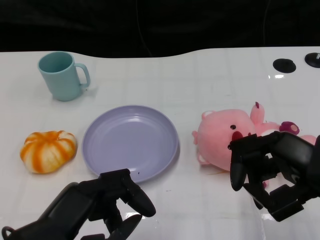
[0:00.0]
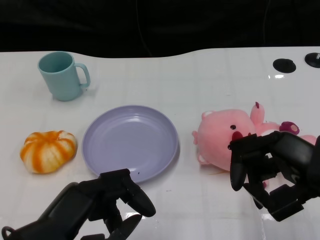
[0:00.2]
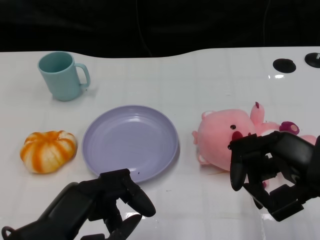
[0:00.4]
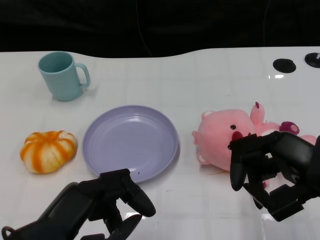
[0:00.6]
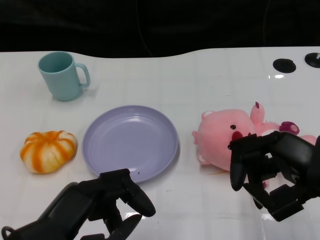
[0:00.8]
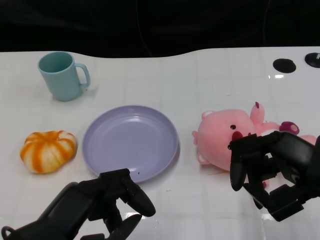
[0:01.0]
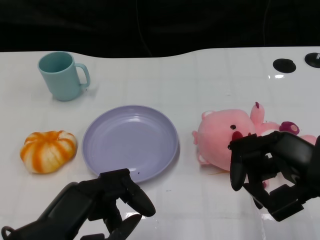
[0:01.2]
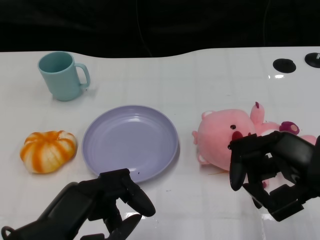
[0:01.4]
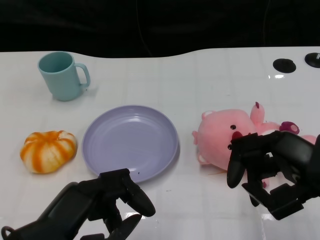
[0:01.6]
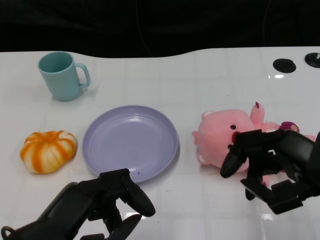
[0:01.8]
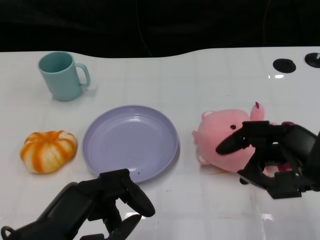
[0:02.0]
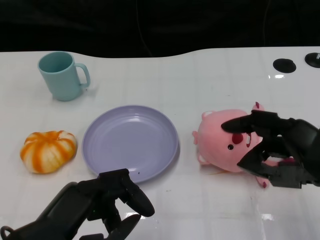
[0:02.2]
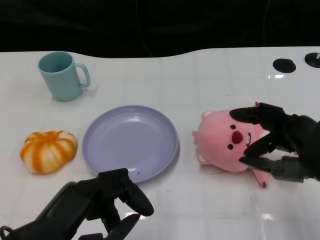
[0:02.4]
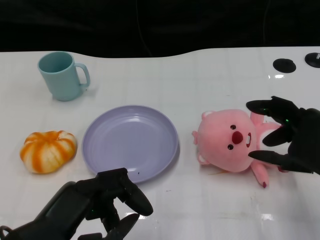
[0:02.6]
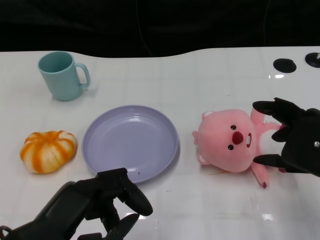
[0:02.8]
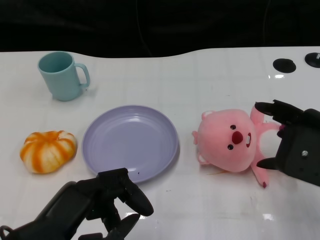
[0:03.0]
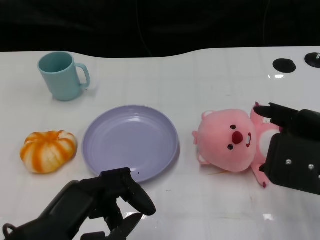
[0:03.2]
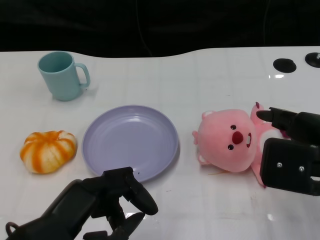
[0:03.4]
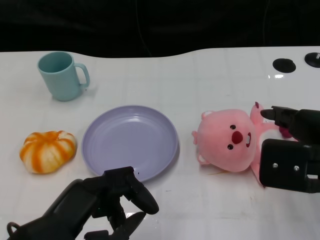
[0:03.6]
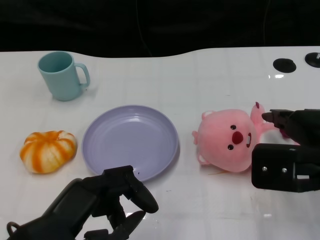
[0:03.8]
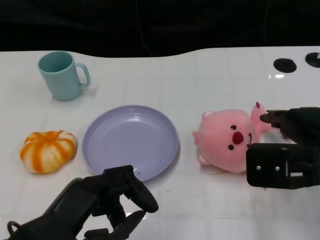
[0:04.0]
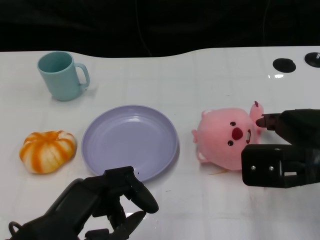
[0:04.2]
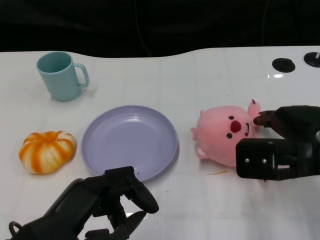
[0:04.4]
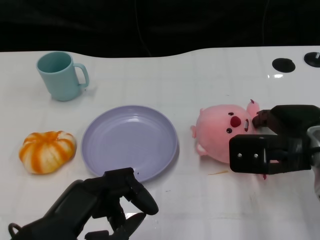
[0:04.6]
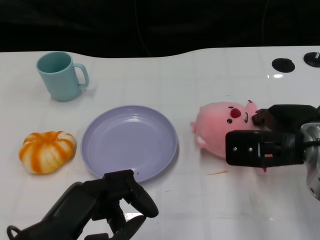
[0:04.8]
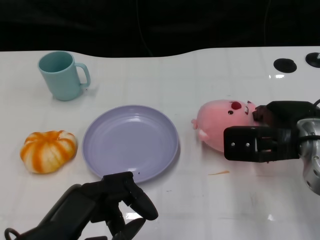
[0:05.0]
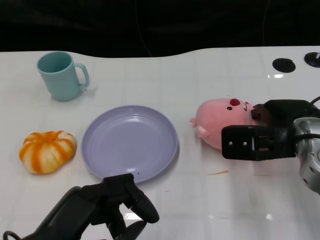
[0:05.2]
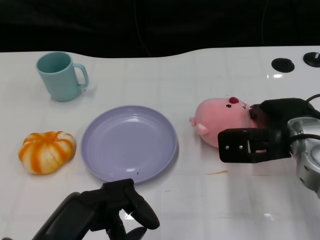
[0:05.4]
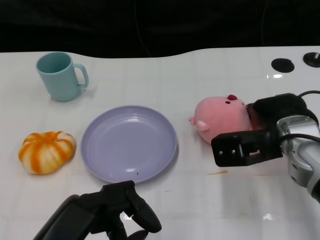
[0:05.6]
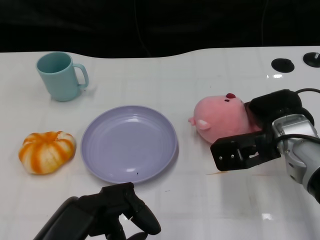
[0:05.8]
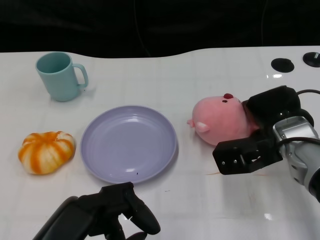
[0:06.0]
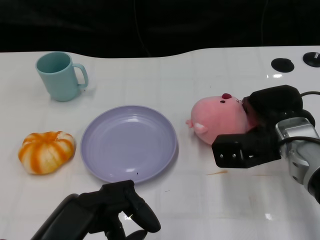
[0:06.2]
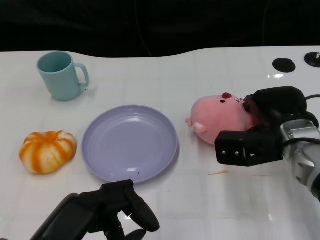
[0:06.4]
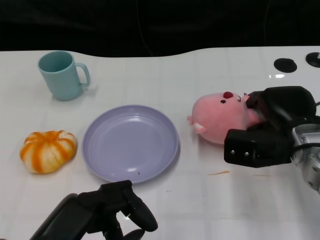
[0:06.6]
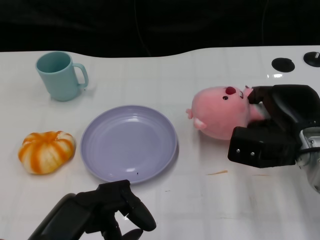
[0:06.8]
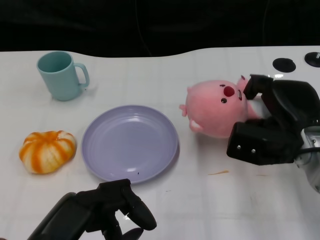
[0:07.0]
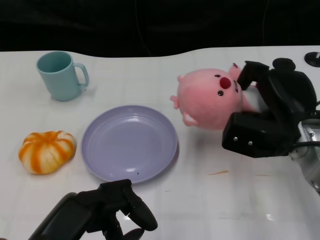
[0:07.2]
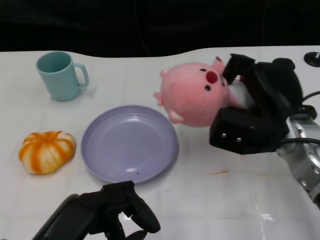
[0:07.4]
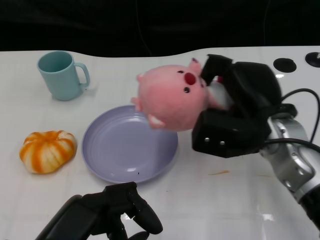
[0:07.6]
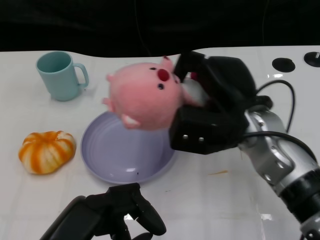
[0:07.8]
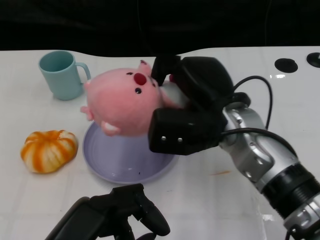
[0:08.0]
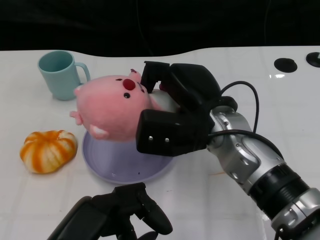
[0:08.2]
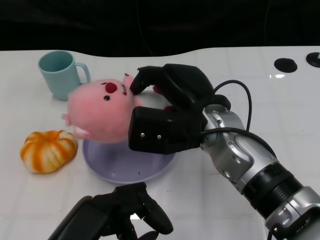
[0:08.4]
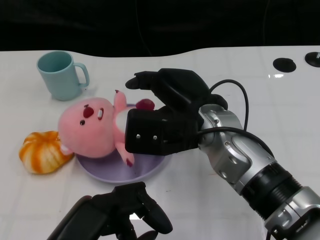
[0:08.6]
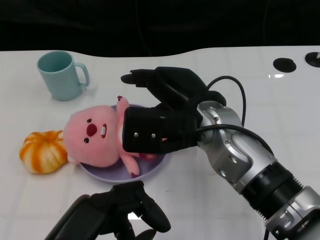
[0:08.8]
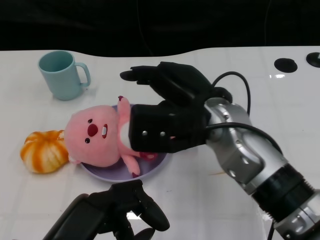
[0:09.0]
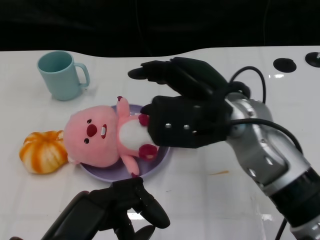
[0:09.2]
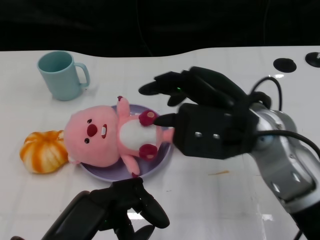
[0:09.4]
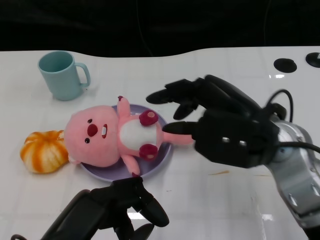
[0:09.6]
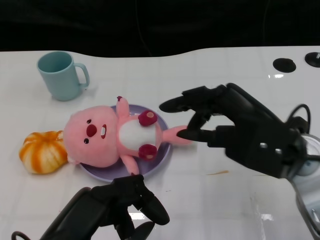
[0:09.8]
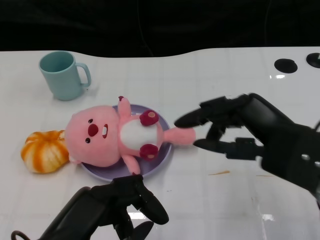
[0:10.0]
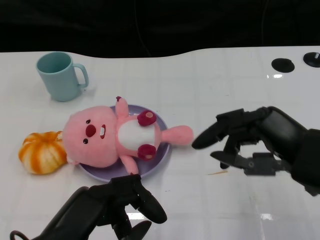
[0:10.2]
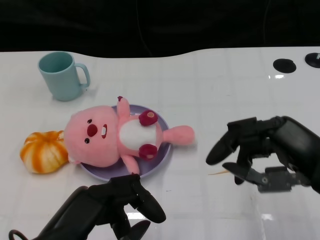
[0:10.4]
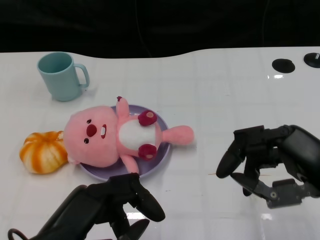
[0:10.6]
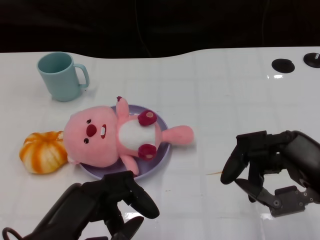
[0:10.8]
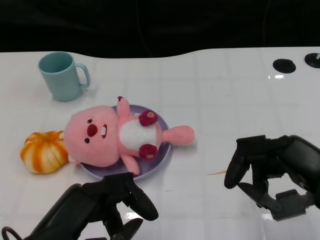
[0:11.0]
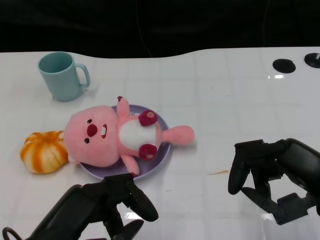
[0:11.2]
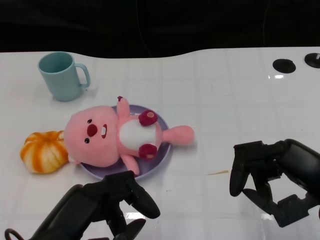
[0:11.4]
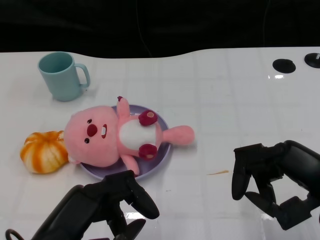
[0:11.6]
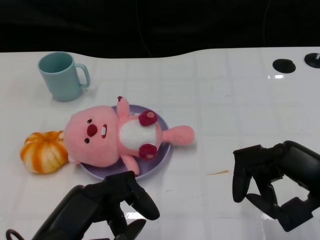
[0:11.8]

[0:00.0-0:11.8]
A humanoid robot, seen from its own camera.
Task of the whole recording: Pick up the doll on the other side of the plate and place it into the plate.
Step, 0:01.2 to 0:07.2: Grasp the pink doll with the right gripper.
Step, 0:07.4 to 0:09.6: Place the pink doll into the plate with the right gripper.
0:03.0 to 0:04.4: The right hand shifts roughly 5 cm forward.
0:04.4 to 0:06.0: The right hand goes roughly 10 cm forward and downward.
0:07.4 to 0:08.8: The right hand is displaced to the left by roughly 10 cm.
0:08.8 to 0:10.4: The right hand goes roughly 20 cm to the right and backward.
0:10.4 to 0:11.8: There are only small adjustments of the hands.

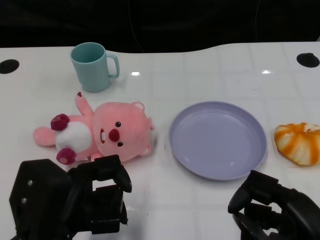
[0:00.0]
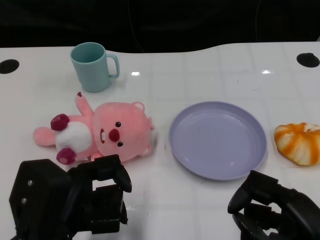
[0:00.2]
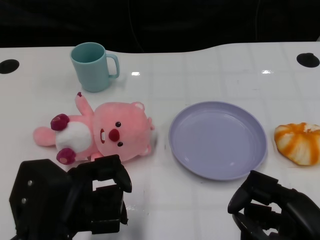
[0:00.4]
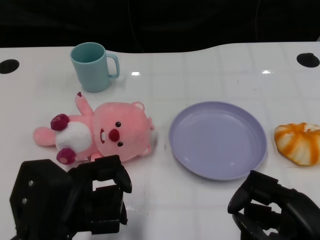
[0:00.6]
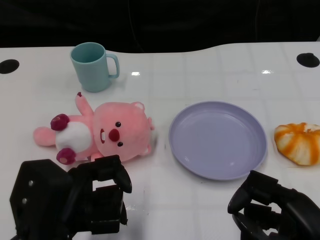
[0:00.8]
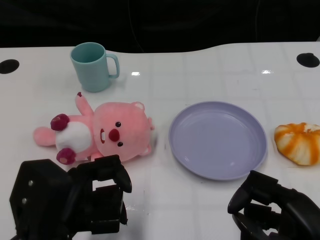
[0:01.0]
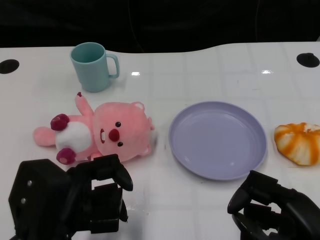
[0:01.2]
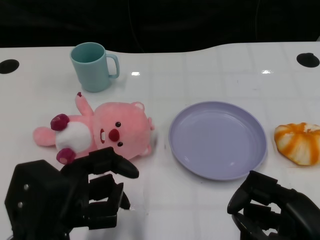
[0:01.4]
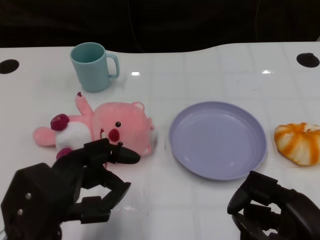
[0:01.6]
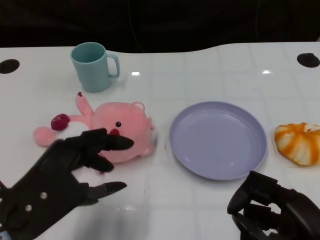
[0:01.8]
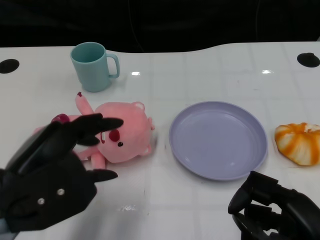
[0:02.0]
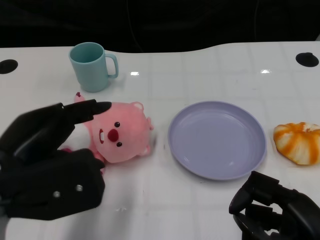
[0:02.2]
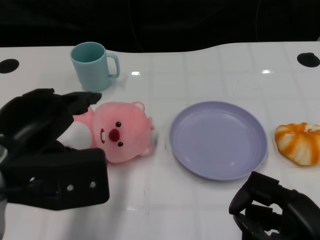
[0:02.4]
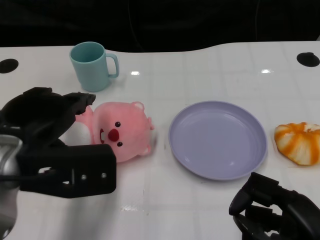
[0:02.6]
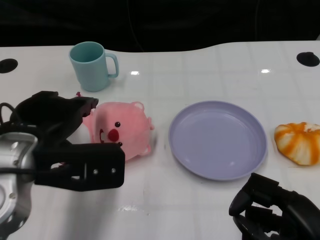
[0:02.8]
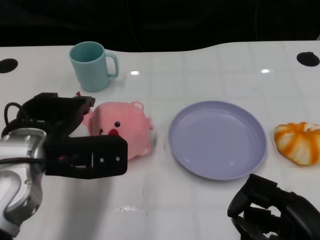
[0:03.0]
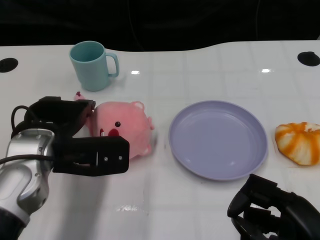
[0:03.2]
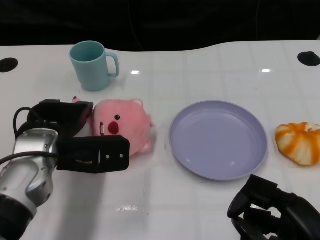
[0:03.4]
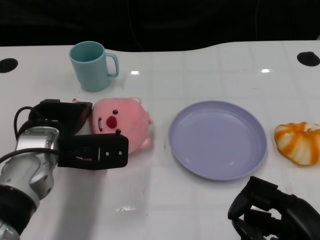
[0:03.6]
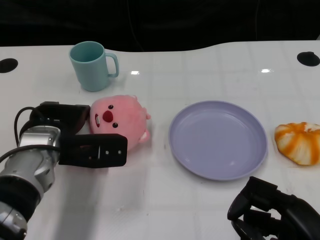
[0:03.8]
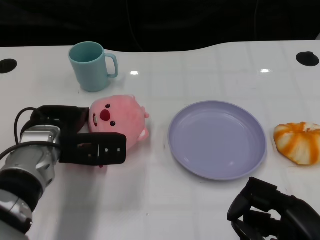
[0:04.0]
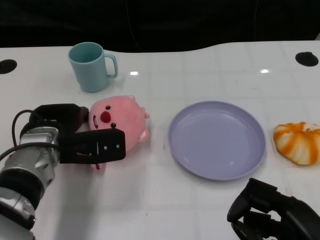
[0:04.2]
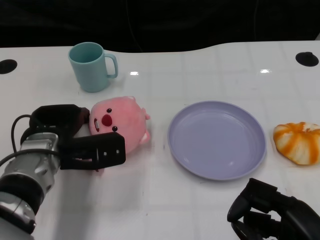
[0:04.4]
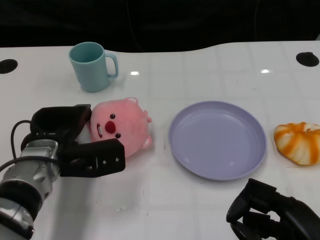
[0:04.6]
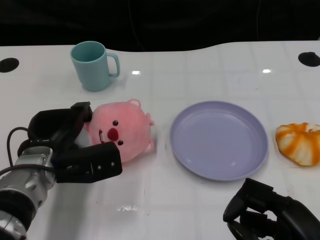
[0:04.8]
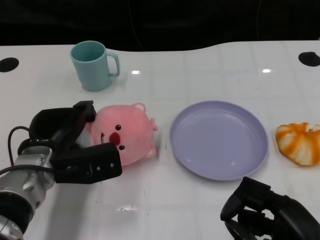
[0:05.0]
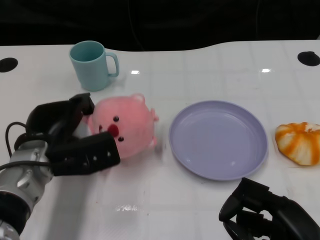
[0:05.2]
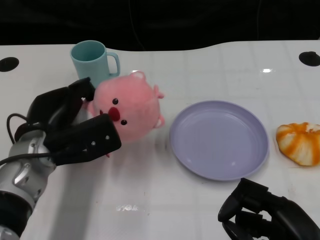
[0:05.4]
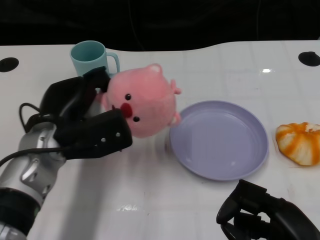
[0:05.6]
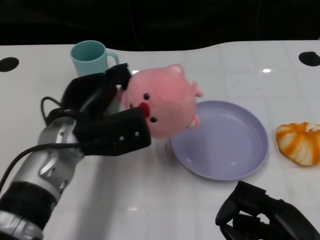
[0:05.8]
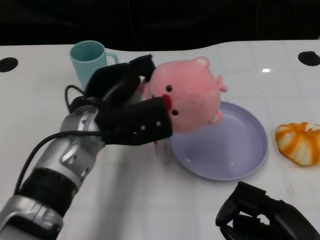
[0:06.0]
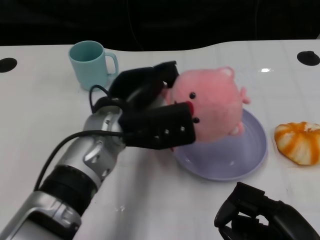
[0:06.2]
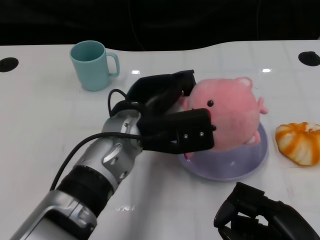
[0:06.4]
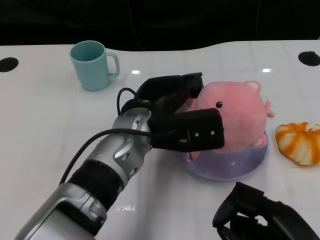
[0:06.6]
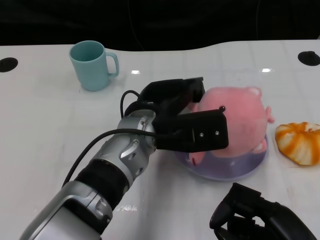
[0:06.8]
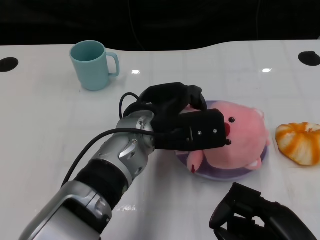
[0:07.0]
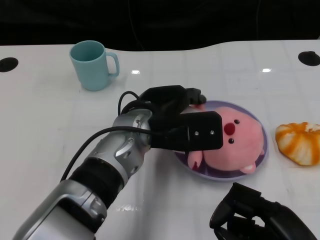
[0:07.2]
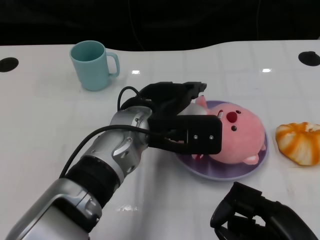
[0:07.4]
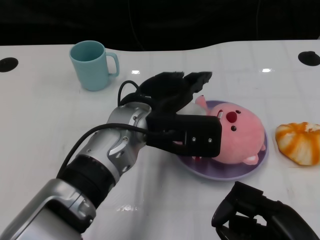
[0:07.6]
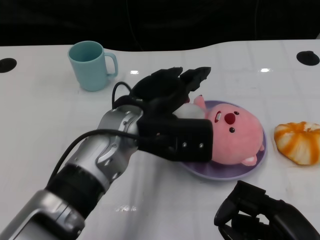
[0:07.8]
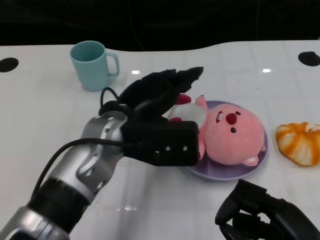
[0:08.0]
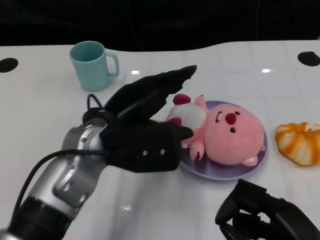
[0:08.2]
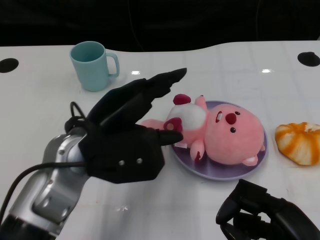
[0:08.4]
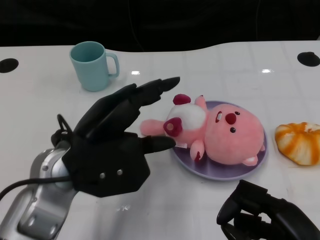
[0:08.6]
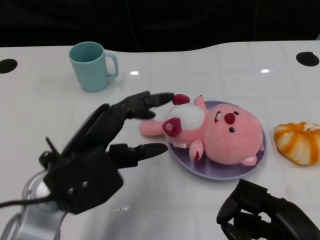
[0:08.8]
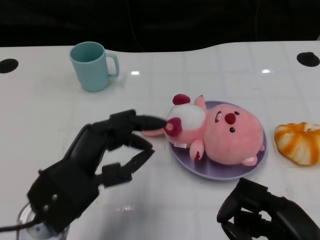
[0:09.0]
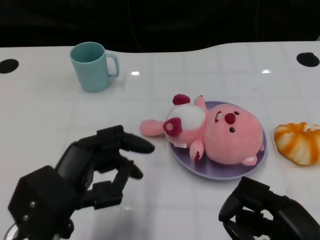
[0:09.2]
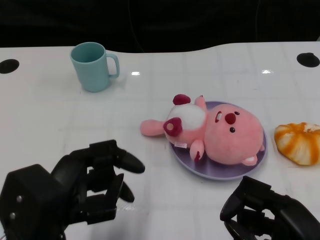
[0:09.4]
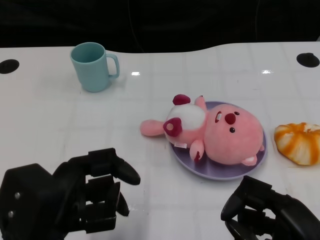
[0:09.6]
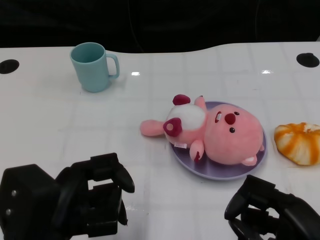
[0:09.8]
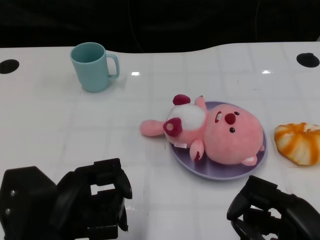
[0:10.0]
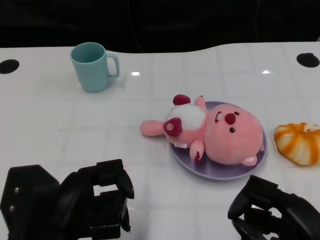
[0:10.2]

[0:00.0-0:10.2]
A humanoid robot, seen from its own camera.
Task of the whole recording: Pick up the doll on one side of the plate and place it into the plate.
Step, 0:01.2 to 0:05.2: Grasp the pink doll with the left gripper.
Step, 0:05.4 to 0:07.6: Place the pink doll into the plate with the left gripper.
0:01.4 to 0:03.0: The left hand moves forward, approximately 10 cm.
0:03.0 to 0:04.4: The left hand shifts approximately 10 cm downward.
0:04.4 to 0:05.8: The left hand moves roughly 5 cm.
0:05.8 to 0:07.2: The left hand is displaced to the right by roughly 10 cm.
0:07.2 to 0:08.8: The left hand is displaced to the left and backward by some 15 cm.
0:08.8 to 0:10.2: The left hand travels backward by approximately 5 cm.
